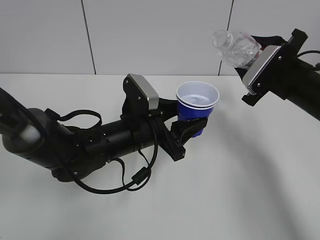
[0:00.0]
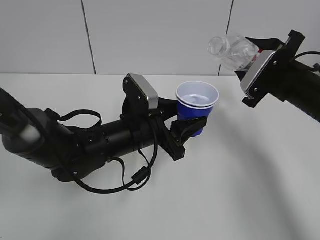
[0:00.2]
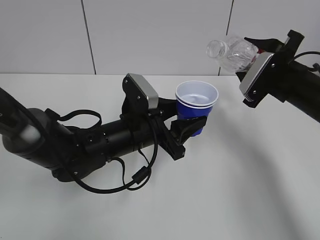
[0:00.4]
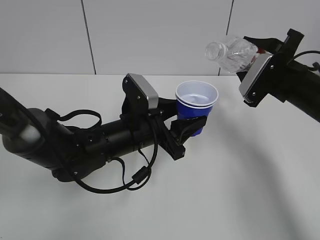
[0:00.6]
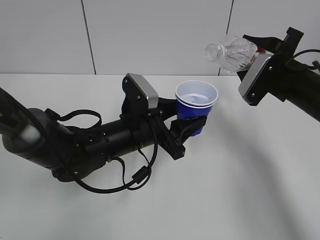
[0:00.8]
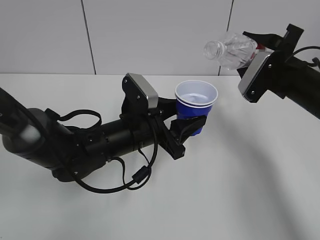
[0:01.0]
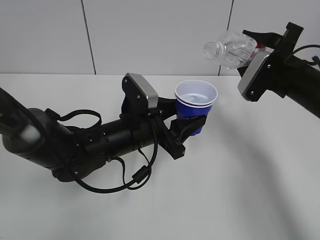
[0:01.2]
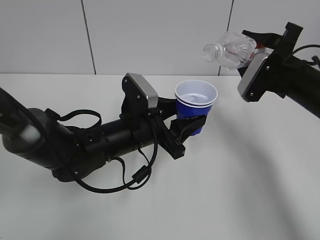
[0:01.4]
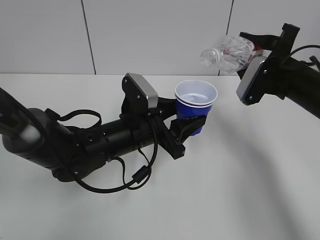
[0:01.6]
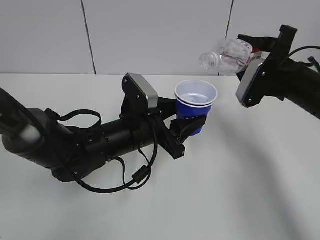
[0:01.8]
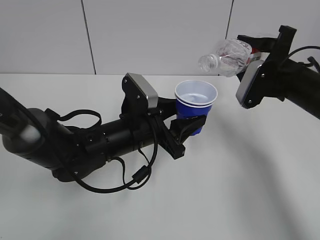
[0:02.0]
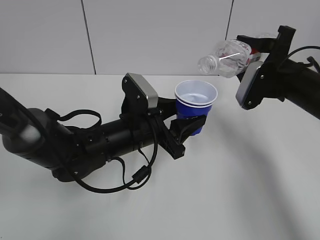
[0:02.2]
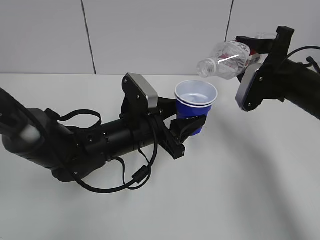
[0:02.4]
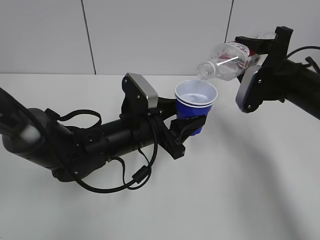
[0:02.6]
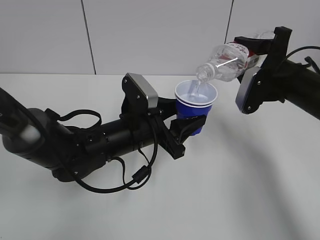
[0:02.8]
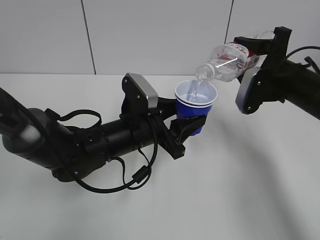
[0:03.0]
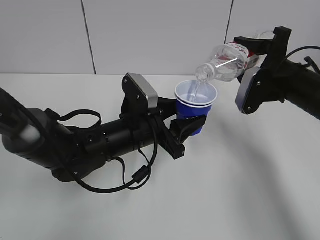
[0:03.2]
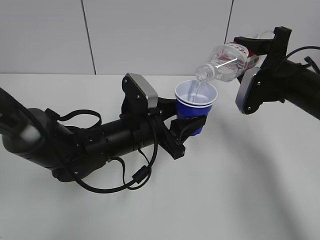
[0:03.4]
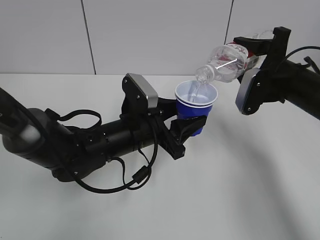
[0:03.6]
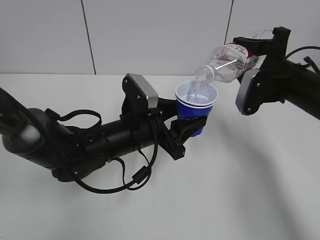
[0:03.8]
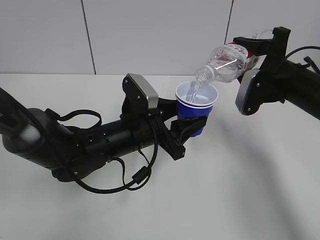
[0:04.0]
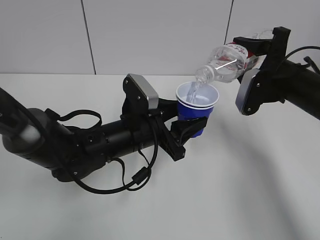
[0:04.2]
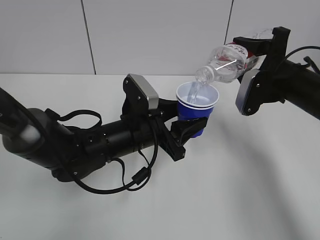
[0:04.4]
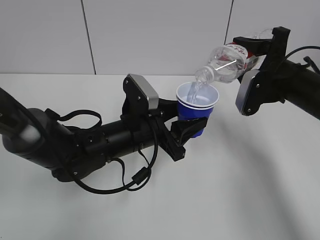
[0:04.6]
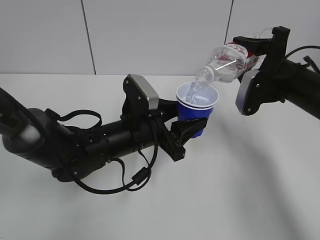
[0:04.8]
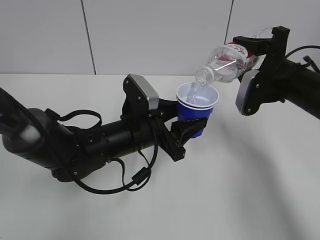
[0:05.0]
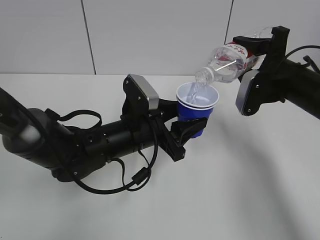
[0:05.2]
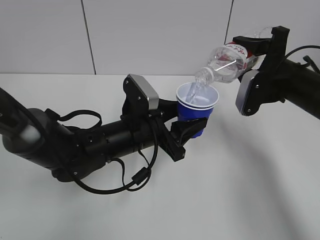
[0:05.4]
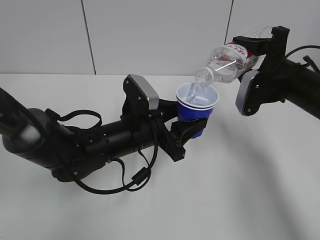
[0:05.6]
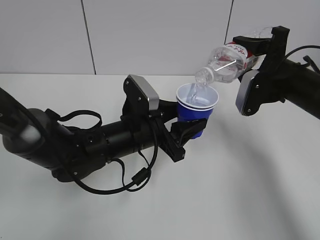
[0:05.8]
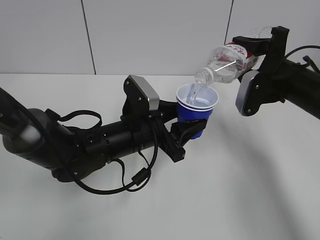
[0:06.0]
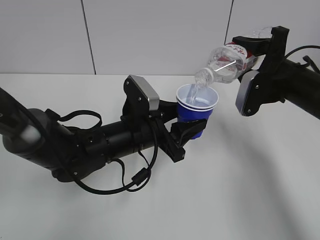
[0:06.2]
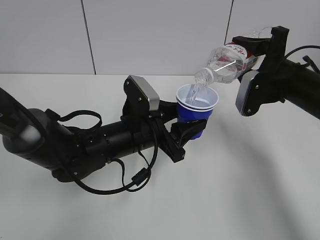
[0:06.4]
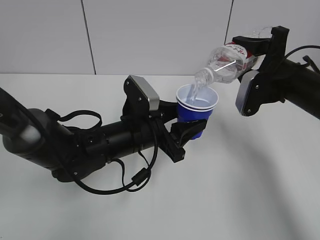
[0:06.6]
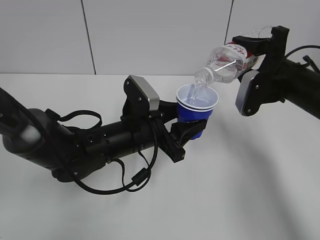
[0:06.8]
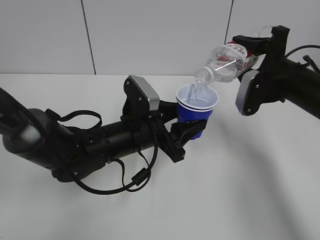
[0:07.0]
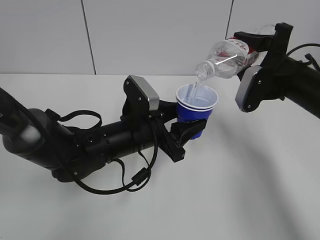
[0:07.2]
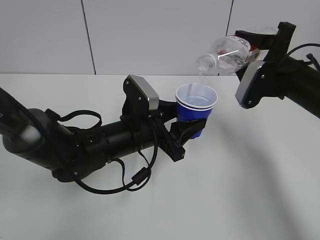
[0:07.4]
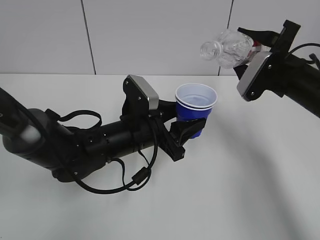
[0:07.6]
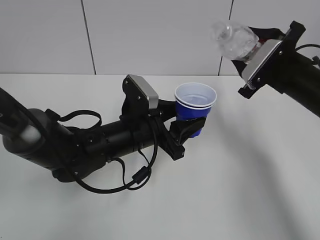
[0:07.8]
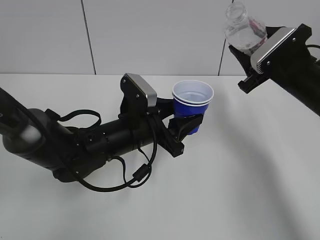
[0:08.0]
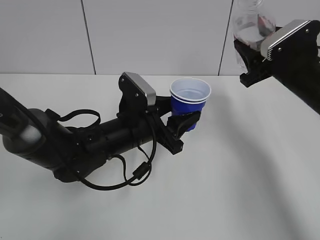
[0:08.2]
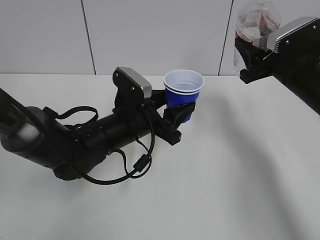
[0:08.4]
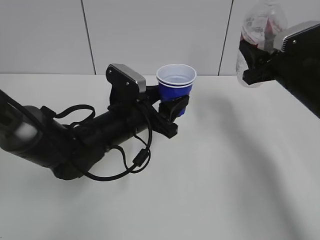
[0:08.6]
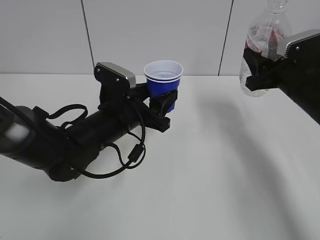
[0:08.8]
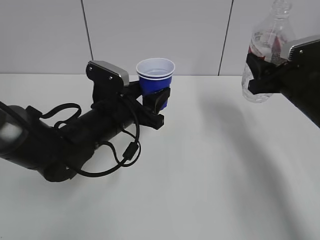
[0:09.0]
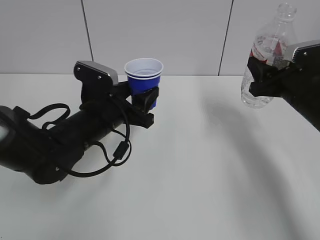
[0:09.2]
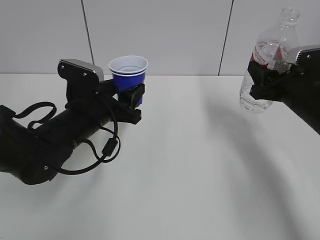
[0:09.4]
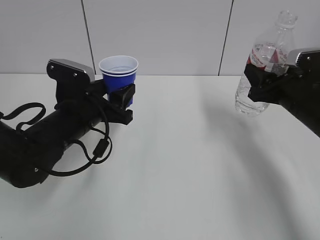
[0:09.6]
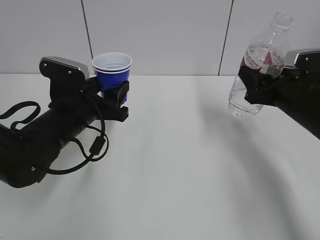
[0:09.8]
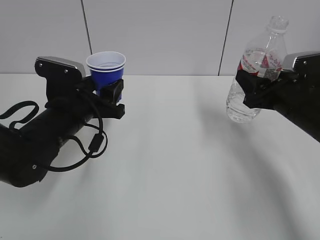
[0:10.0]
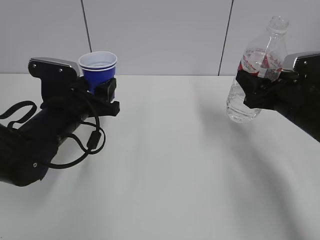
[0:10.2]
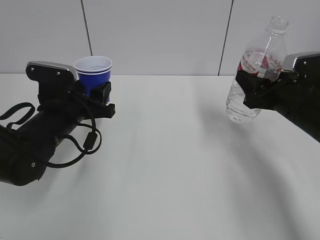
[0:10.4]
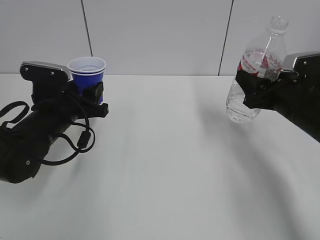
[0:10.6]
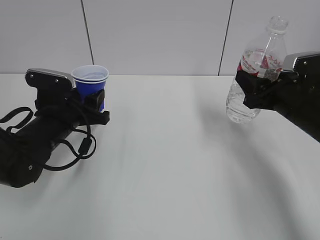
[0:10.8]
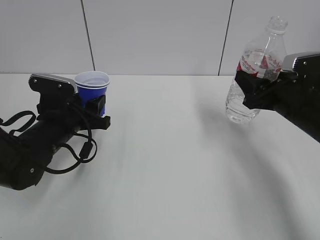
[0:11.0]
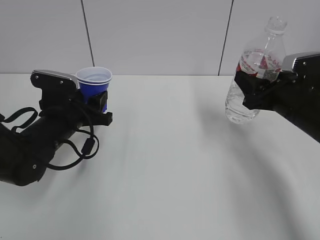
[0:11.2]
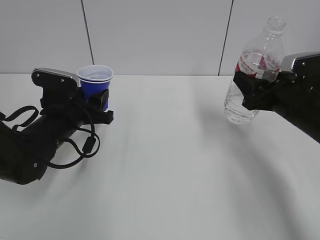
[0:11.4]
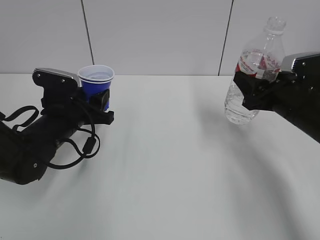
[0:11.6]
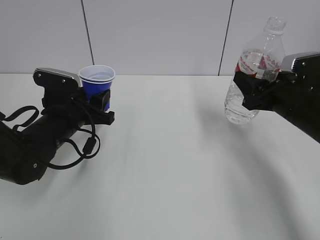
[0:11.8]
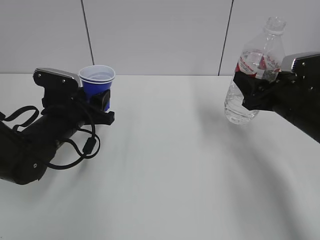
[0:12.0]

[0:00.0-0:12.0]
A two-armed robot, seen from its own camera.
Step, 0:00.0 to 0:07.8: Fill water with the left hand.
Step, 0:00.0 to 0:07.8: Pour water with the right hand.
Step, 0:08.0 to 0:09.0: Collect water with the right hand.
0:00.0 to 0:01.6: The grippers make only small movements.
0:01.6 to 0:03.0: The grippers make only small movements.
0:03.0 to 0:06.0: The two grippers keep their place.
0:06.0 to 0:07.6: The grippers make only small movements.
0:09.0 to 0:10.4: The left gripper moves to the left, approximately 10 cm.
0:10.4 to 0:12.0: There are only small adjustments of the grippers.

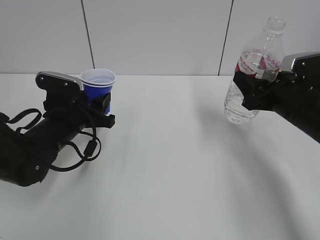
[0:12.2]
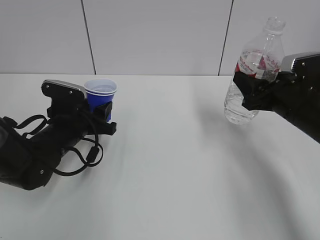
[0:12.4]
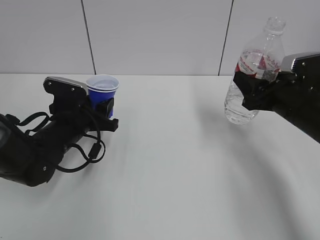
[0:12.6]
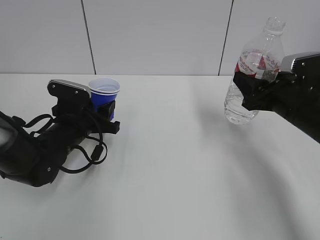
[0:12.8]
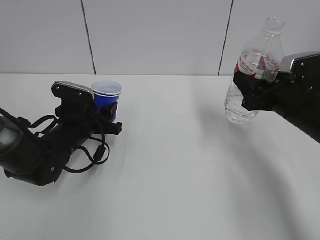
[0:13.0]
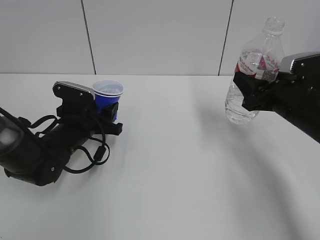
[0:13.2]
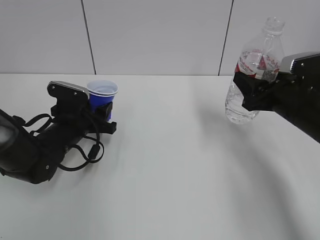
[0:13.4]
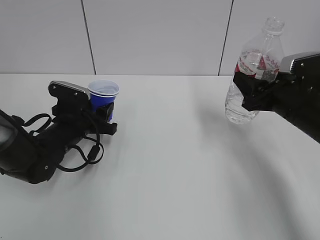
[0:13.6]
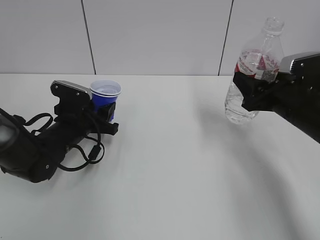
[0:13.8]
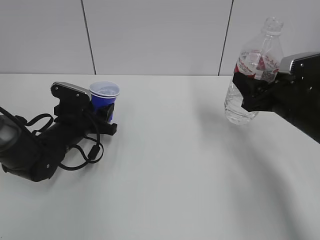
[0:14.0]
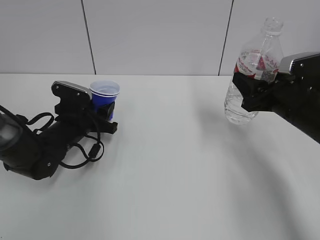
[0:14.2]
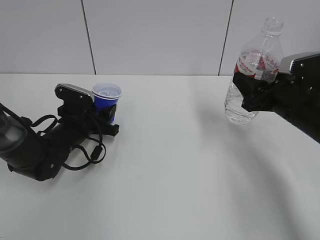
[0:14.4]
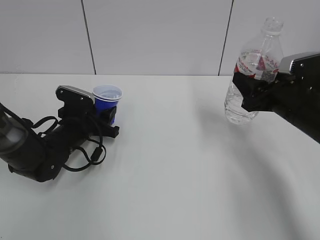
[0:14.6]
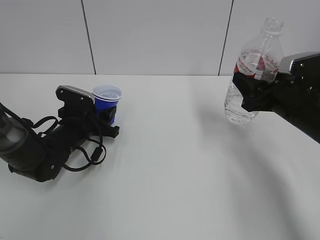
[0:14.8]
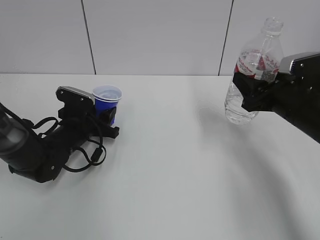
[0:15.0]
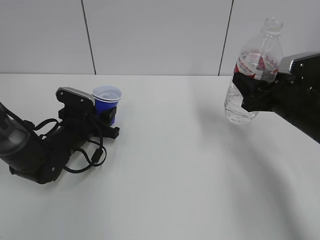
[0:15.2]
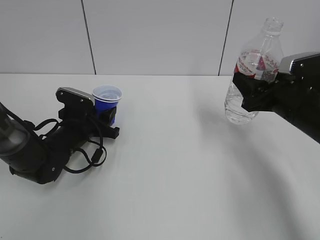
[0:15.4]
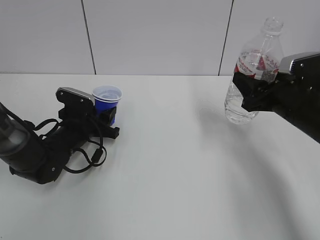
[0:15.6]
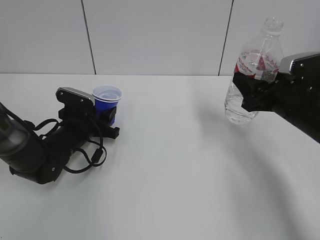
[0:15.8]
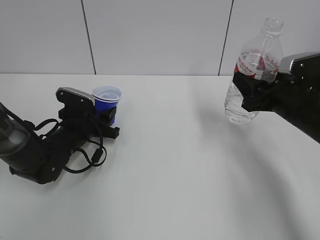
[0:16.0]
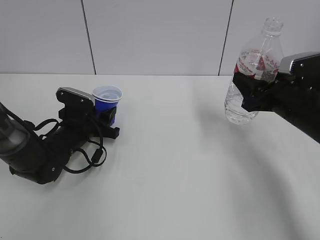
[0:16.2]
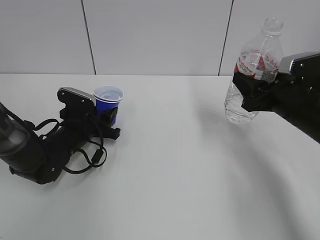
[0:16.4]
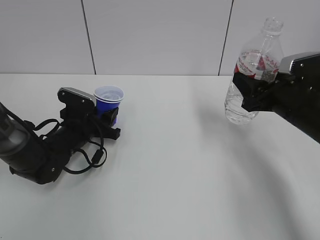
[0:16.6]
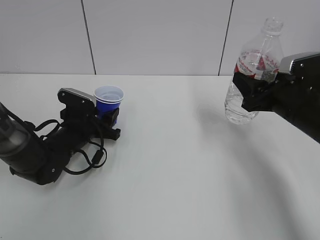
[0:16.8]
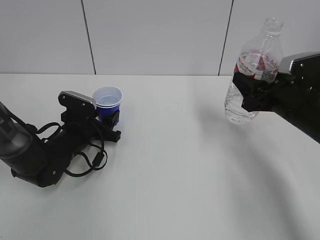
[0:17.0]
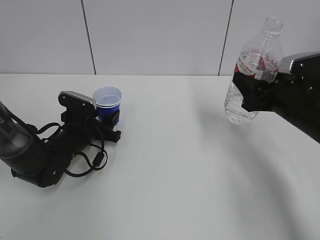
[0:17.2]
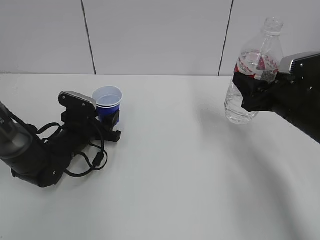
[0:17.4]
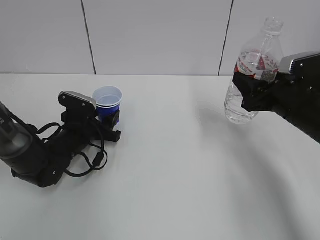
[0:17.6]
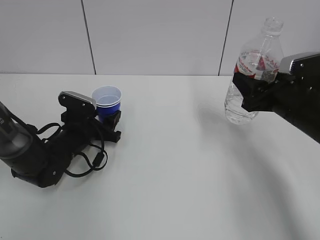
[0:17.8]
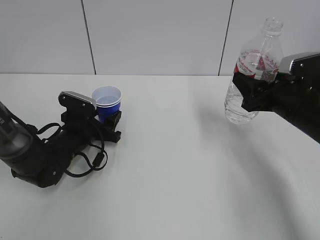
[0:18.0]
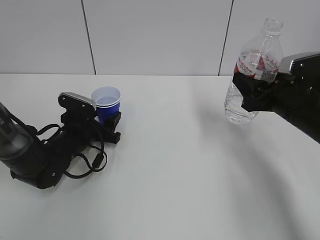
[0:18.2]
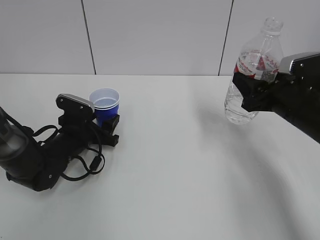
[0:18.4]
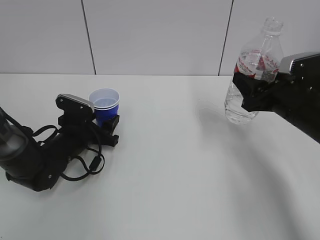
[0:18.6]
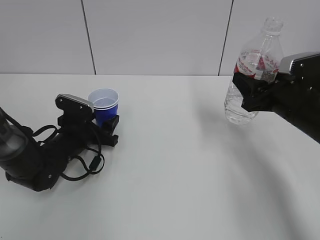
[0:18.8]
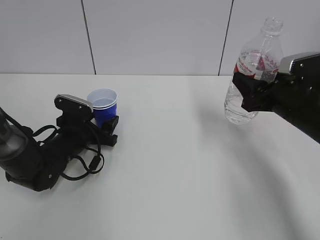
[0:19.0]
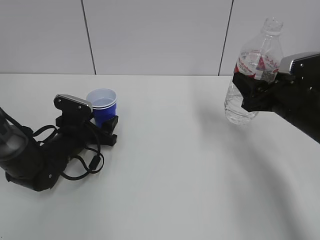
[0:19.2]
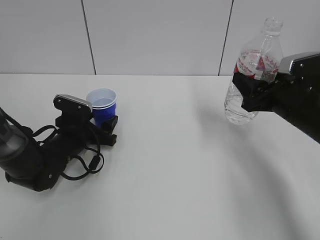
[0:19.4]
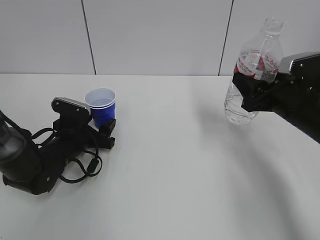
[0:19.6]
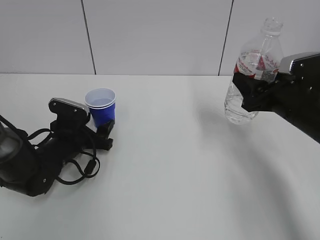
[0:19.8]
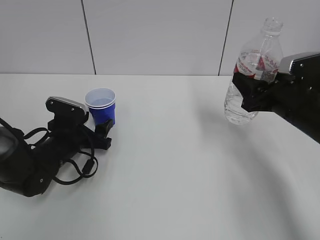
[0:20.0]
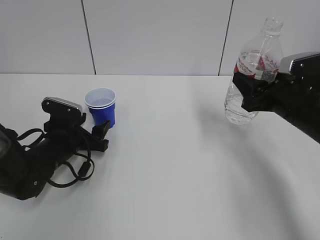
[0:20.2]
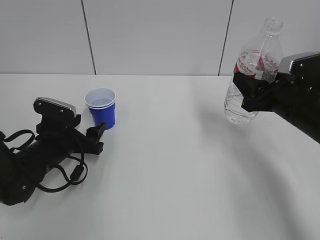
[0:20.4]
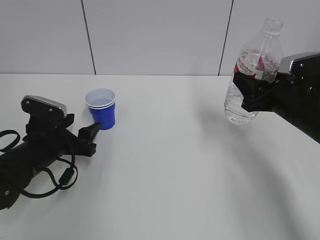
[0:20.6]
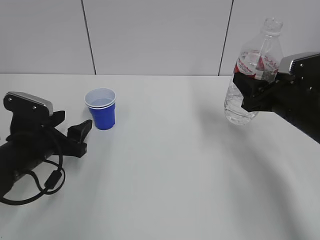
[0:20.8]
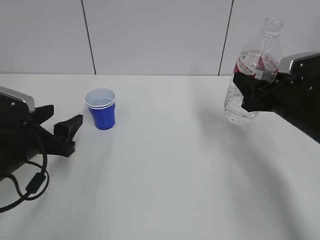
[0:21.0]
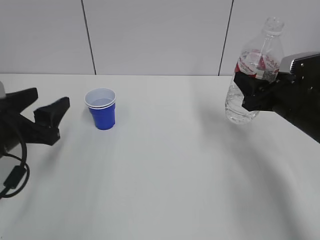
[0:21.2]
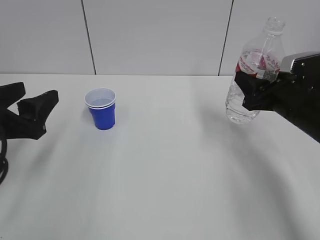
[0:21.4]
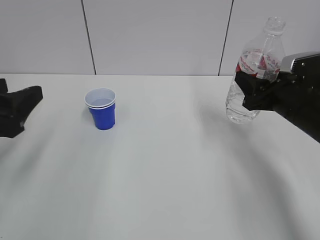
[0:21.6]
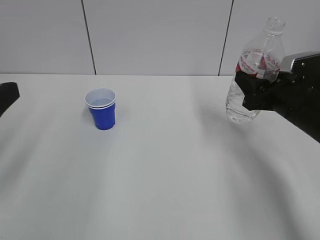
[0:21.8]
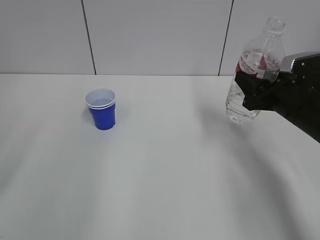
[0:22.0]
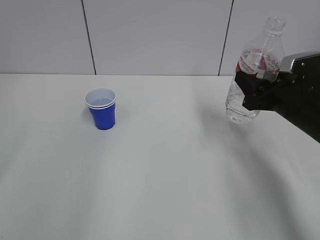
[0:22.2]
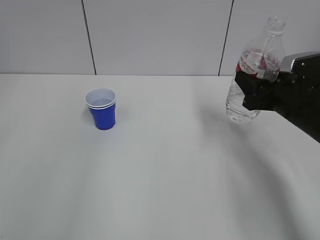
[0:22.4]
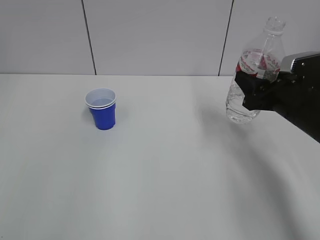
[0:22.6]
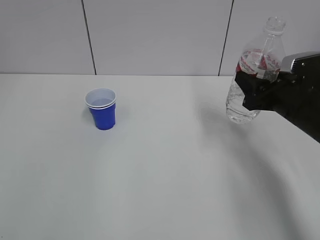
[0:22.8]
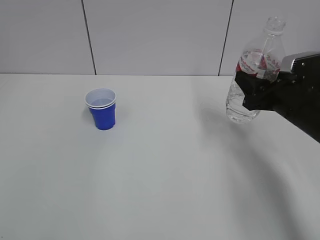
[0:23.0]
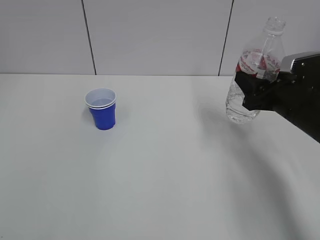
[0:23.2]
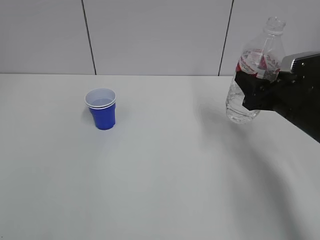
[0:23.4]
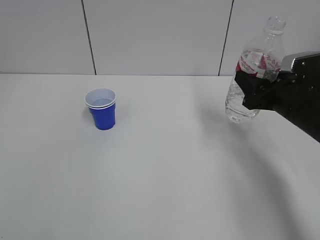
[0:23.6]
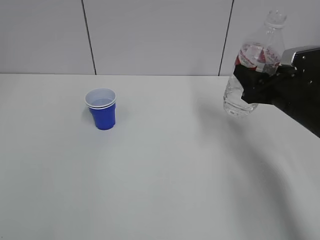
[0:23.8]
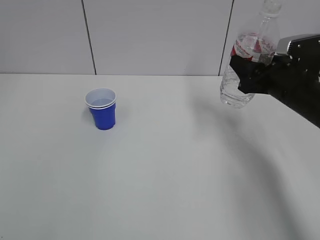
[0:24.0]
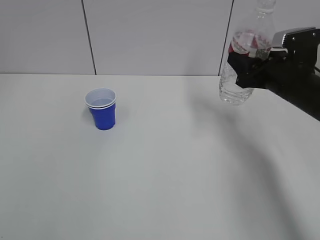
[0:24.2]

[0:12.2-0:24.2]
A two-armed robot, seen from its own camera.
Step, 0:12.2 to 0:20.4: Place the paper cup with the left hand.
0:12.2 to 0:13.8: The grippers move only a little.
0:13.8 to 0:15.2: There are only small adjustments of the grippers.
0:15.2 to 0:16.6: The two grippers keep their place.
0:16.6 to 0:18.2: The left gripper opens up.
0:18.2 to 0:19.8: The grippers move only a little.
0:19.8 to 0:21.2: The left gripper goes some 20 cm upward and backward.
0:21.2 to 0:22.6: The left gripper is displaced backward and upward by roughly 25 cm.
0:22.6 to 0:24.2: The grippers make only small movements.
